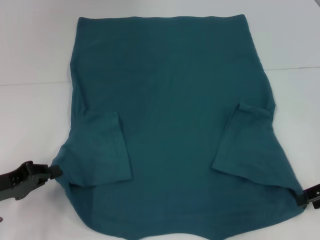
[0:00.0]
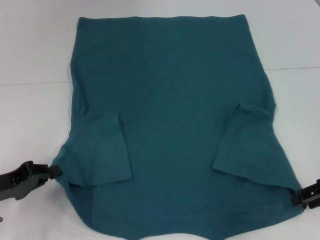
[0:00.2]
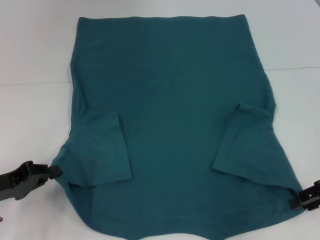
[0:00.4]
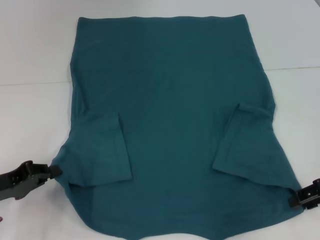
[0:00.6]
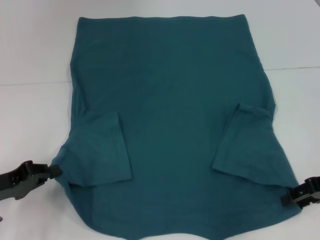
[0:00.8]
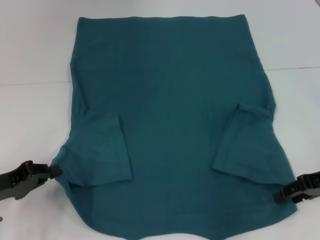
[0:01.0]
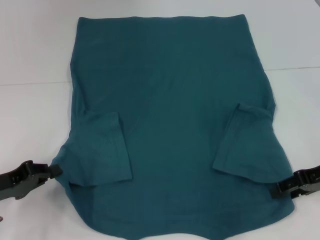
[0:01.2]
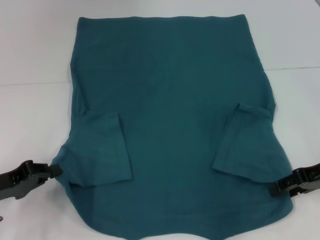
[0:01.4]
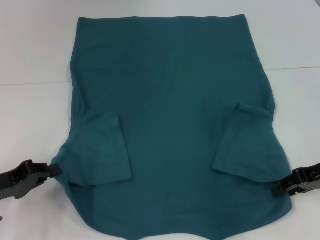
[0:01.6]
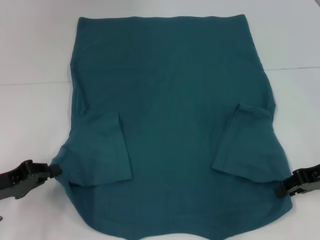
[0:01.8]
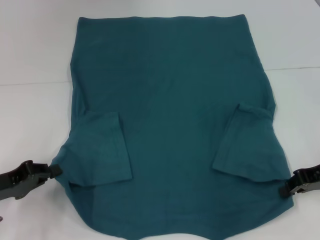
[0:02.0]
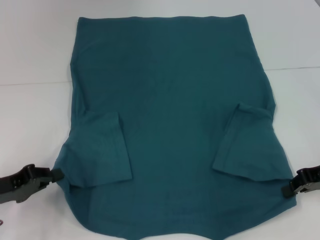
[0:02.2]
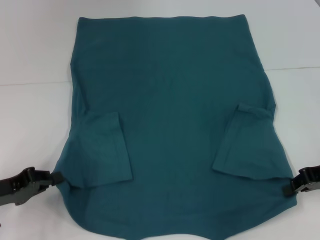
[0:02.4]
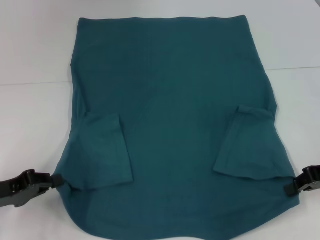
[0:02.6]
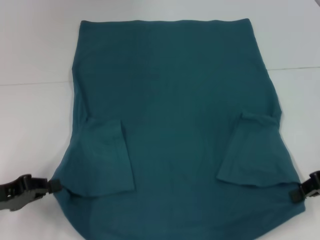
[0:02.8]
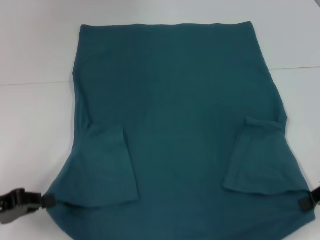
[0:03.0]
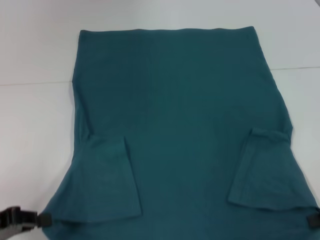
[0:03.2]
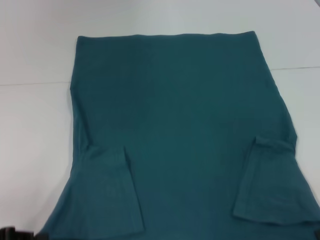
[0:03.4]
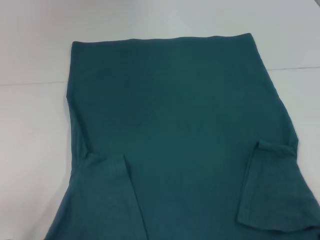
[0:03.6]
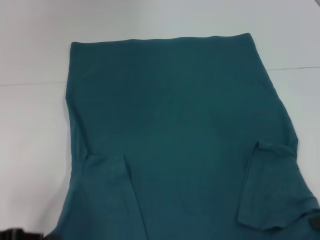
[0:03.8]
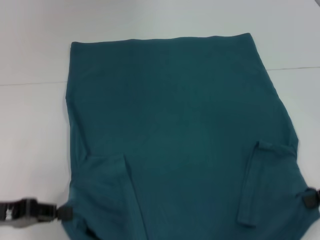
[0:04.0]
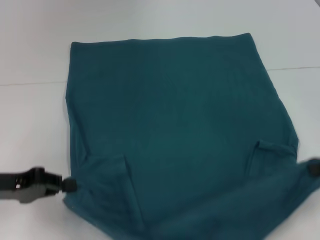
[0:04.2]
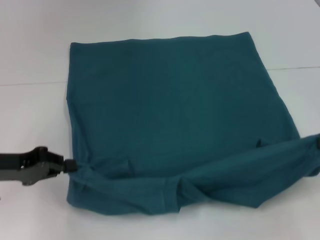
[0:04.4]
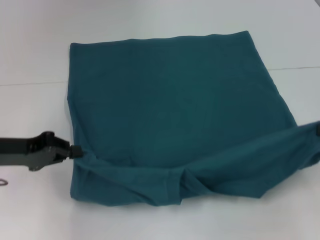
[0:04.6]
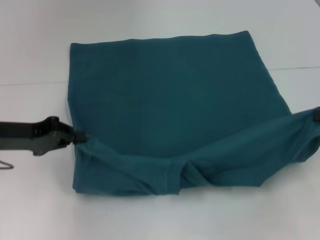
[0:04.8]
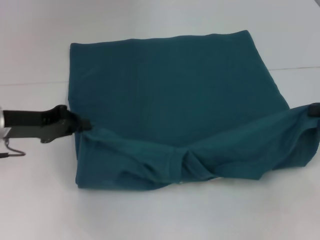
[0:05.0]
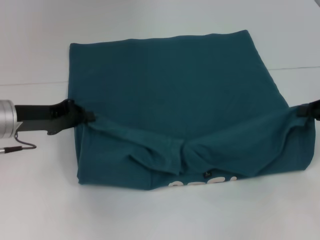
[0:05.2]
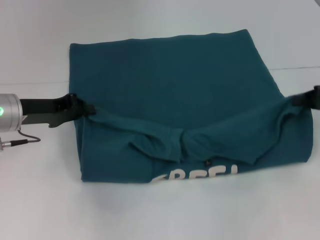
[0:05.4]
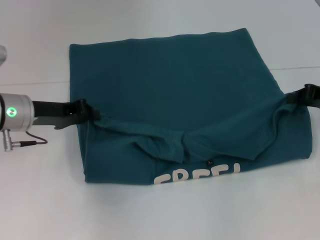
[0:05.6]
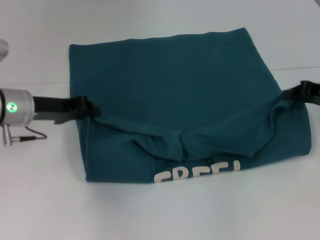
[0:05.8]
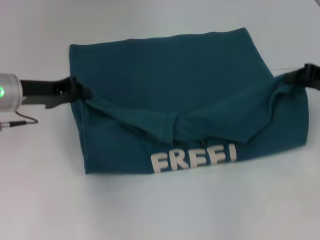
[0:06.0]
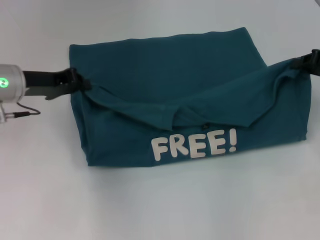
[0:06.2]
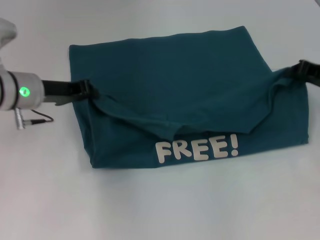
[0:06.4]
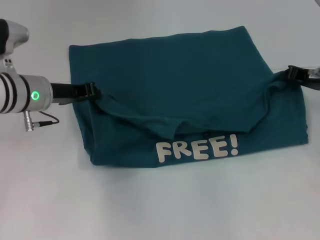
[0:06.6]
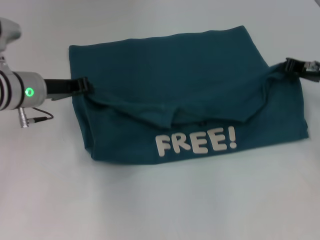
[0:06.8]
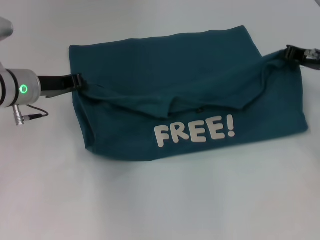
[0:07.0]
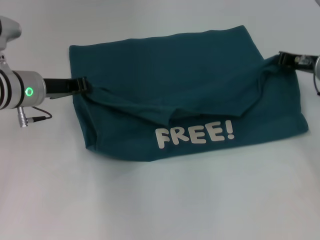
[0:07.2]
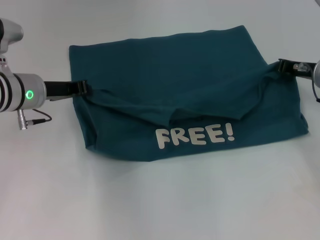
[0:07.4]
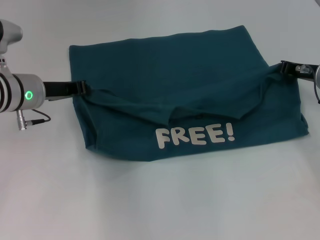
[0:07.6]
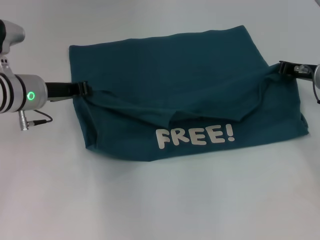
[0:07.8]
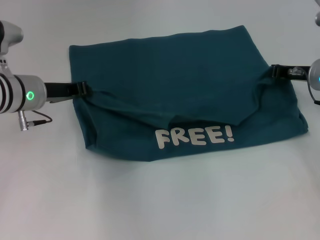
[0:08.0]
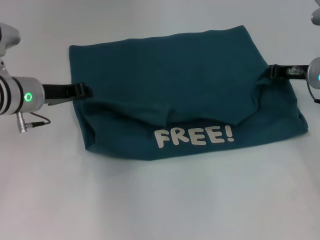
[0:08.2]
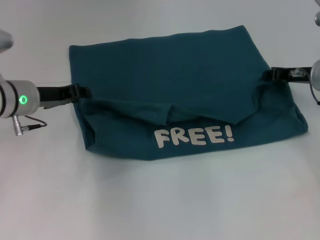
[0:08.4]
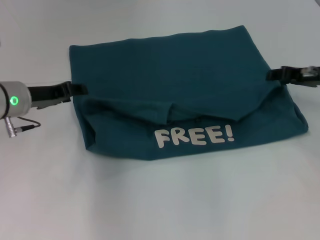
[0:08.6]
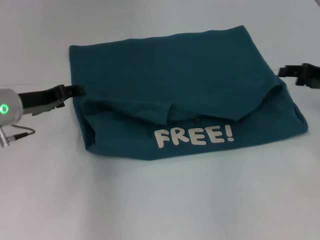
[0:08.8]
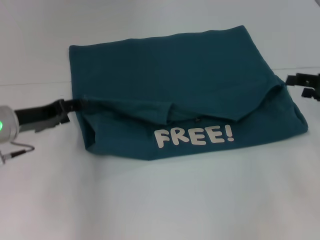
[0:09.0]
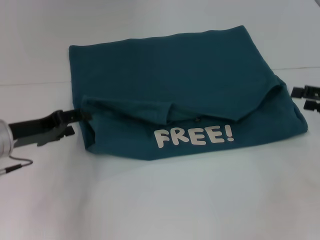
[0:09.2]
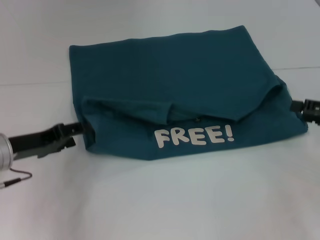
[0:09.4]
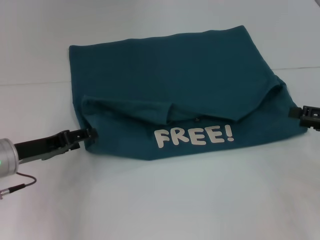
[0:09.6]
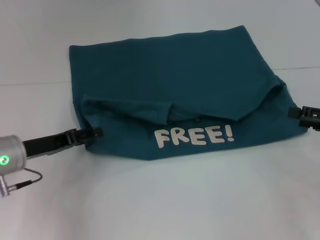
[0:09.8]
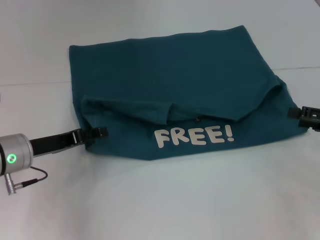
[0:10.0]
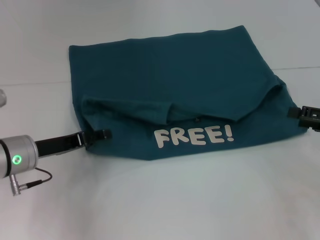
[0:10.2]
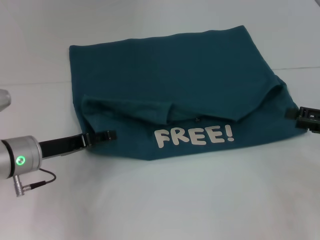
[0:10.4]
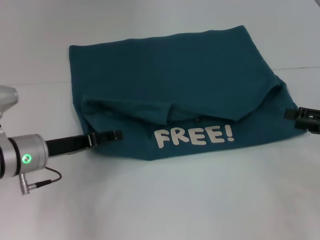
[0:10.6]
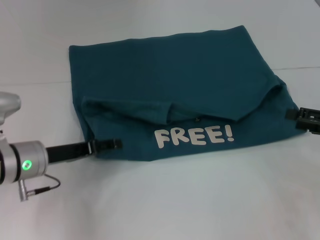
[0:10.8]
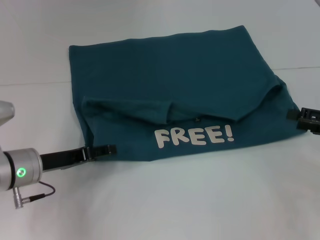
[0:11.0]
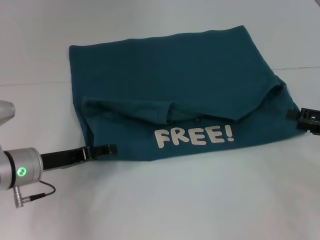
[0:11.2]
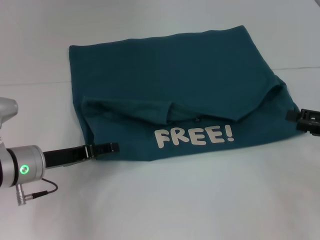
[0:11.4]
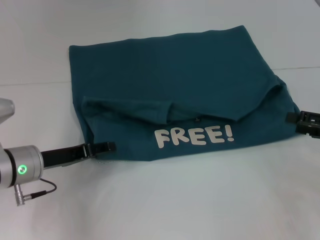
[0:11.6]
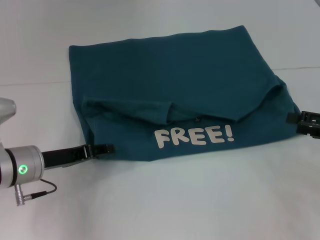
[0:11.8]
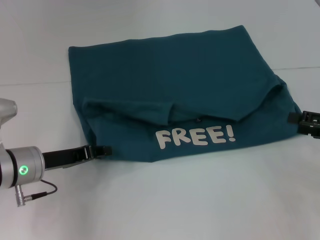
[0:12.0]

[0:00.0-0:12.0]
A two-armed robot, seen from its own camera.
Step, 0.0 to 2.2 s: Grab the bottom right corner with your right hand.
Step, 2.4 to 8.6 s: Fold the clothes to the left.
Step, 2.4 to 8.6 s: Fold the clothes to the right.
0.0 to 1.6 s: There are only small adjustments of the grippers.
1.6 to 3.0 s: The right gripper closes.
3.0 to 4.4 s: The right gripper moves approximately 5 cm. Meanwhile the left gripper is displaced forward by about 5 cm.
4.4 to 6.0 s: The right gripper moves forward, roughly 10 cm; the left gripper moves forward and to the right, some 10 cm.
6.0 to 7.6 s: The right gripper moves forward, approximately 5 cm.
7.6 to 9.0 s: The right gripper goes some 10 cm backward and to the right, and opens its fingers. Meanwhile the left gripper moves backward, roughly 5 cm, and opens.
9.0 to 10.4 s: The right gripper goes roughly 5 cm backward, while the left gripper changes place by some 5 cm.
10.4 to 12.0 s: The grippers move only a little.

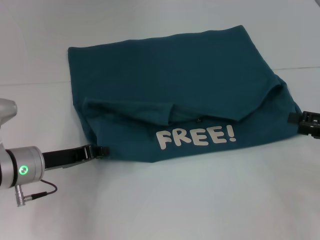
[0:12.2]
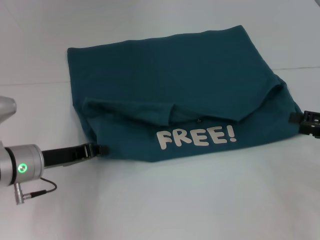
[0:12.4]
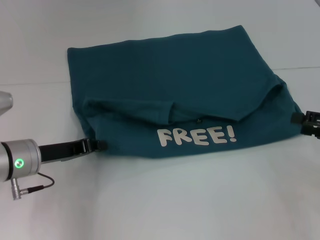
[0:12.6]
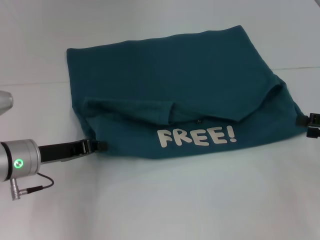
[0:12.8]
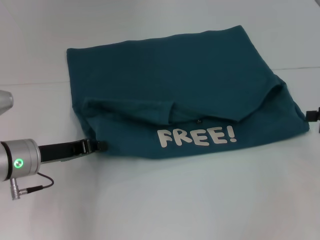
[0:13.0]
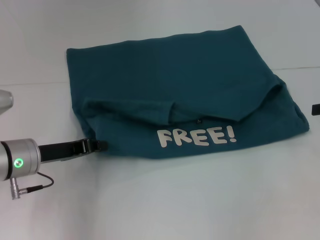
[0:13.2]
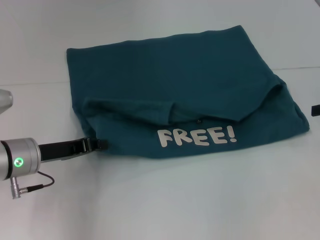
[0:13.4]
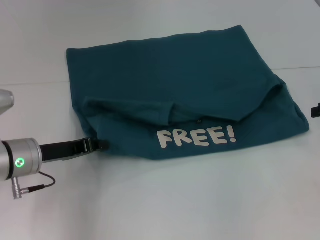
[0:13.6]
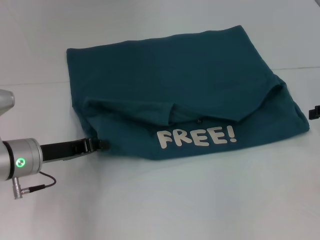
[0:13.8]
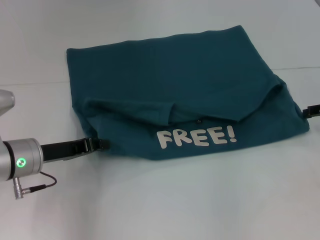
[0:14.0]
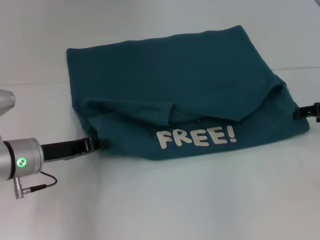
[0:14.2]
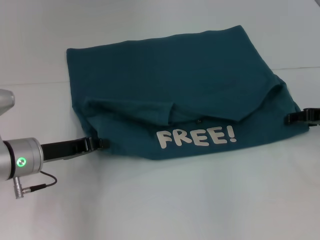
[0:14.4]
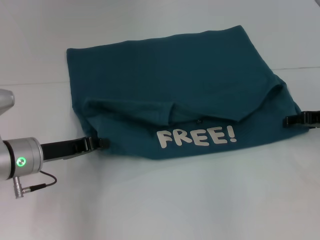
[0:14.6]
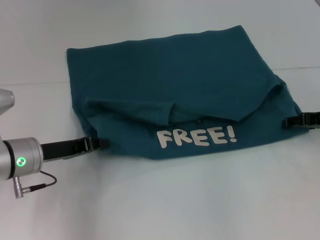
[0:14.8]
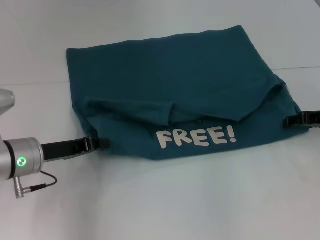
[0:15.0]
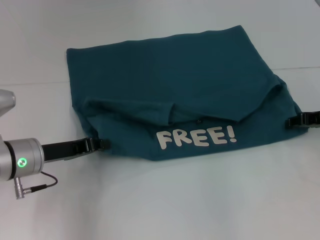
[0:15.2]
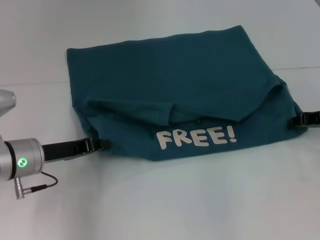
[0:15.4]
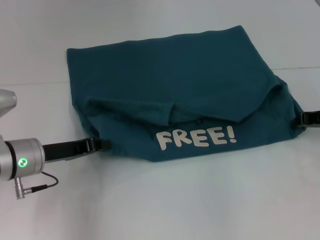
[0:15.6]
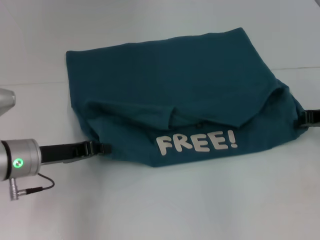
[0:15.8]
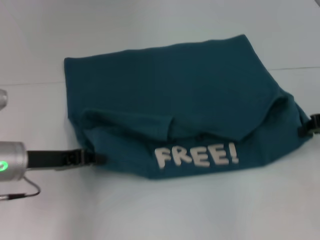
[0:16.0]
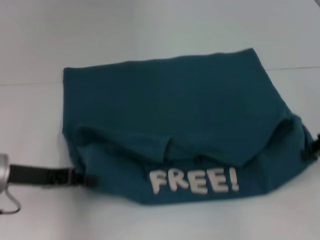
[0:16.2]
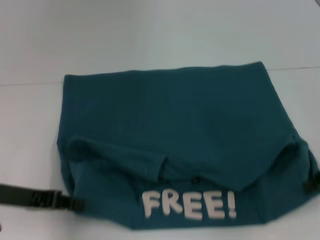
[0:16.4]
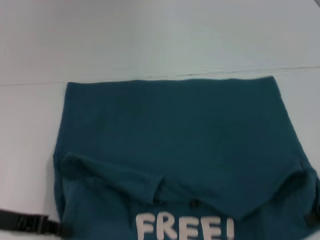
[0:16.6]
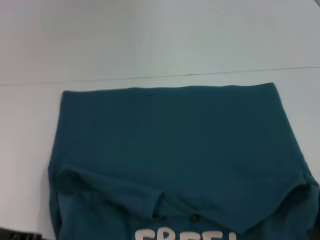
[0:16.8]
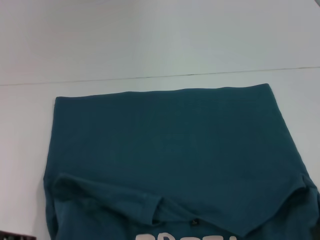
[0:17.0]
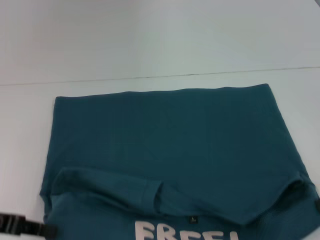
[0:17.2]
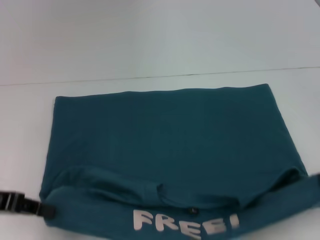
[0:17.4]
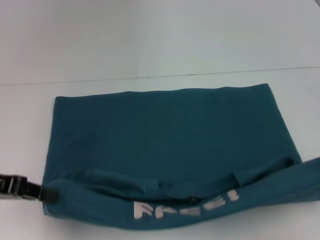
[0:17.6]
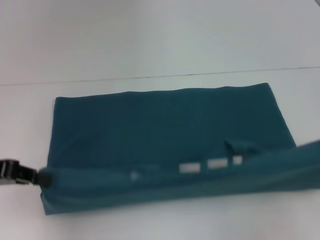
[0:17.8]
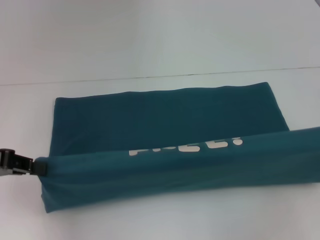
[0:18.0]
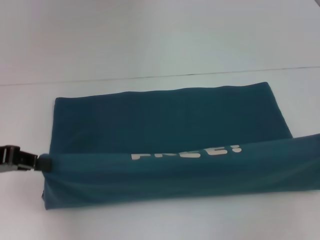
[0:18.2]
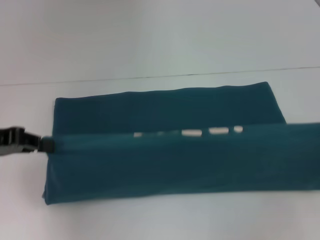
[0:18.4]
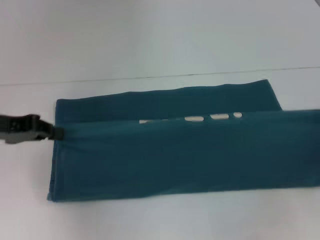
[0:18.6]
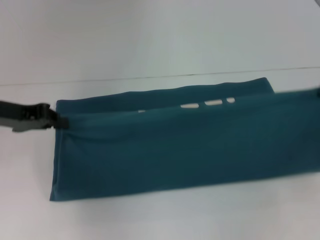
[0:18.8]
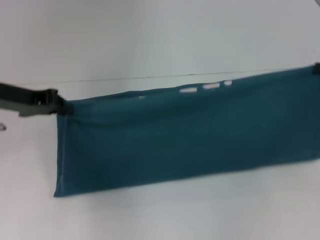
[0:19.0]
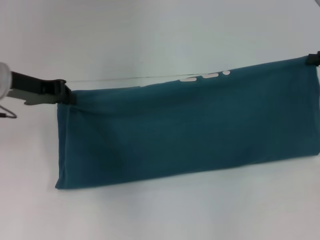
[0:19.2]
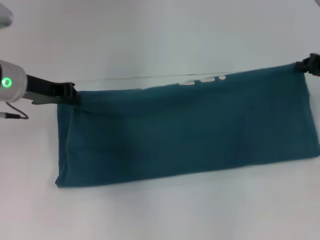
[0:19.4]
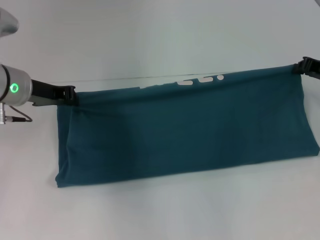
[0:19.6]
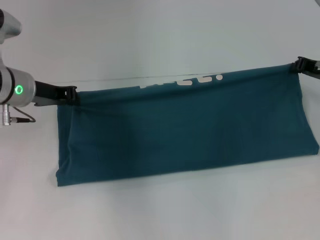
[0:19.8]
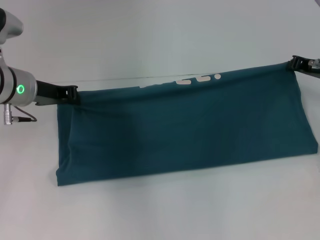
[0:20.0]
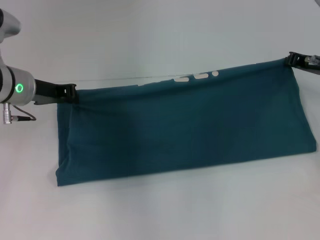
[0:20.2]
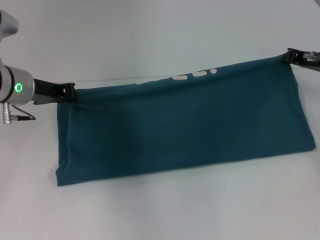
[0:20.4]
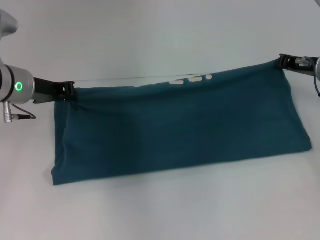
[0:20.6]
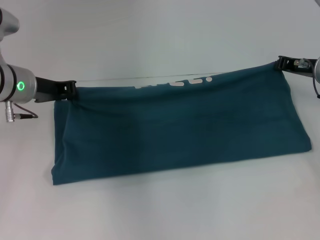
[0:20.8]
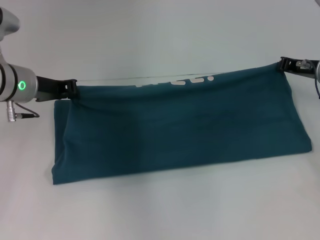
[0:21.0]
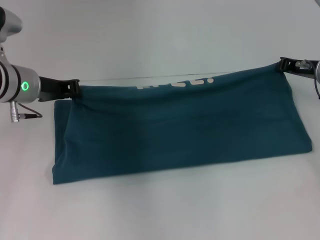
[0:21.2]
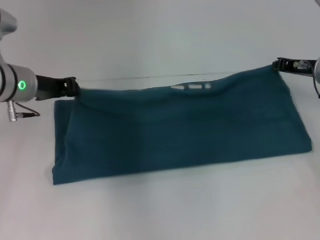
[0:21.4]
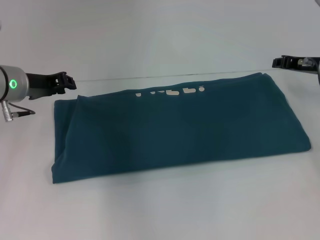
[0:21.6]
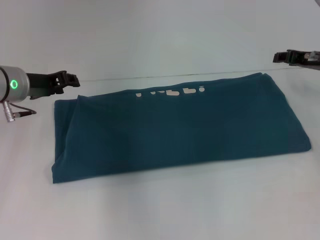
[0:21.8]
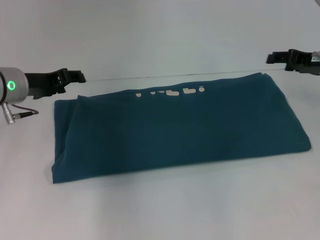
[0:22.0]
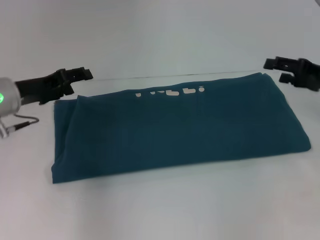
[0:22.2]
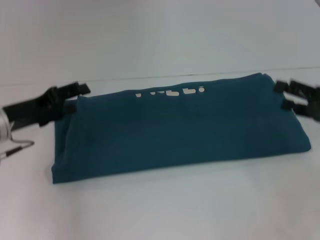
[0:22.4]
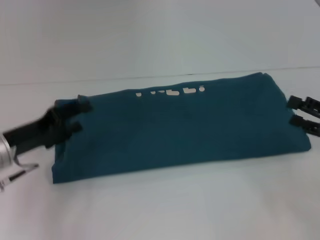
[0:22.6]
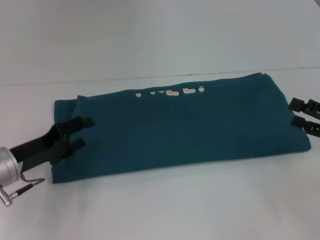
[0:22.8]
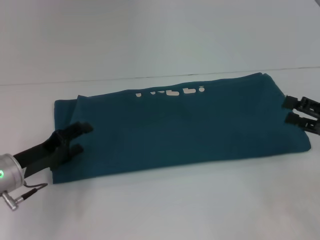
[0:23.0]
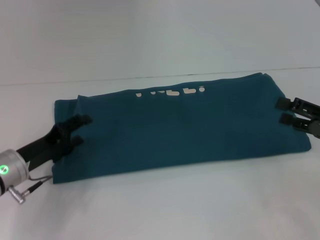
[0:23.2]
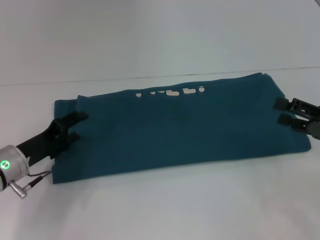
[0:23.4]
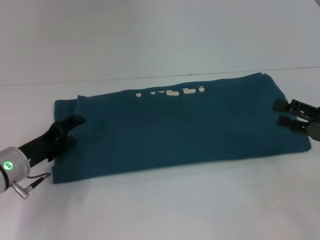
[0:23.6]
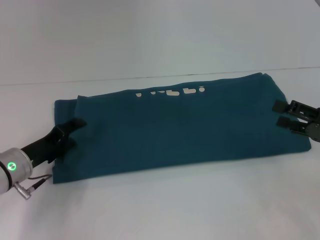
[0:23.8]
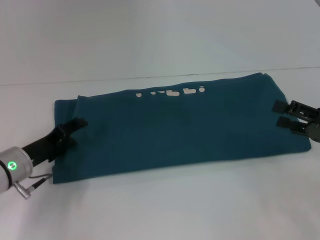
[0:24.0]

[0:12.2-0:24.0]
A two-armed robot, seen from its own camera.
Step, 12.2 to 16.2 s: Pull the clothes with your left hand.
Step, 12.2 to 16.2 s: Pull the clothes with your right hand.
Step, 16.4 to 21.6 s: Fold the clothes to the right.
12.2 to 13.6 s: The right gripper is displaced forward by approximately 5 cm.
13.6 to 15.2 s: The right gripper moves to the left and downward, approximately 10 cm.
15.2 to 16.6 s: The left gripper moves backward and to the left, about 10 cm. Meanwhile the right gripper goes about 10 cm backward, and closes.
16.6 to 18.2 s: The left gripper is displaced upward by about 5 cm. Meanwhile the right gripper is displaced to the right by about 5 cm.
18.2 to 19.6 s: The left gripper heads forward and to the right, covering about 15 cm. The right gripper heads forward and to the left, covering about 15 cm.
19.6 to 21.0 s: There are only small adjustments of the grippers.
21.0 to 22.6 s: The left gripper travels backward and downward by about 10 cm, and opens its fingers. Meanwhile the right gripper is displaced backward by some 15 cm, and opens up.
22.6 to 24.0 s: The left gripper is displaced downward by approximately 5 cm.
